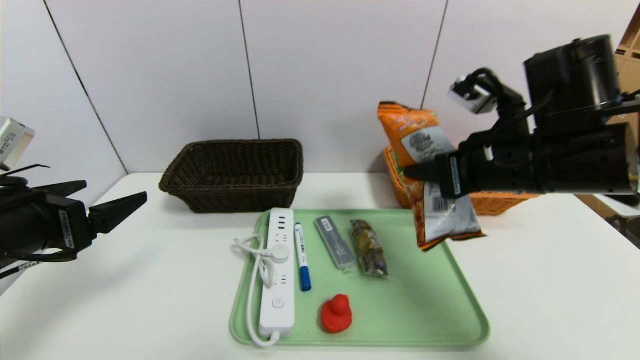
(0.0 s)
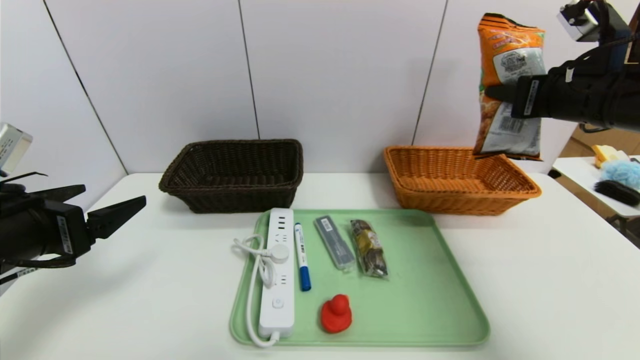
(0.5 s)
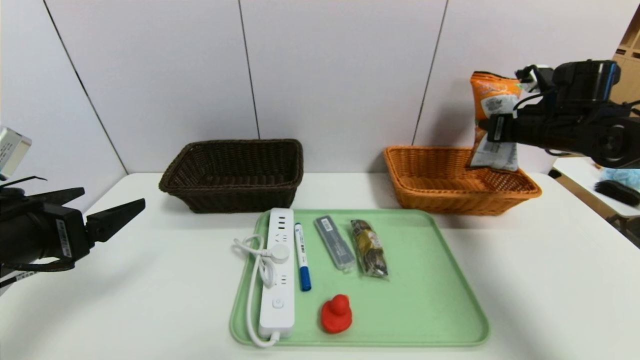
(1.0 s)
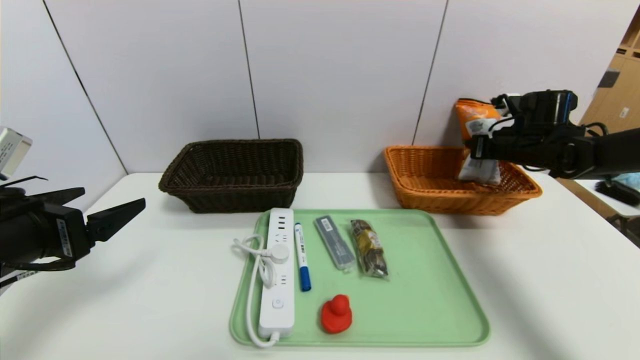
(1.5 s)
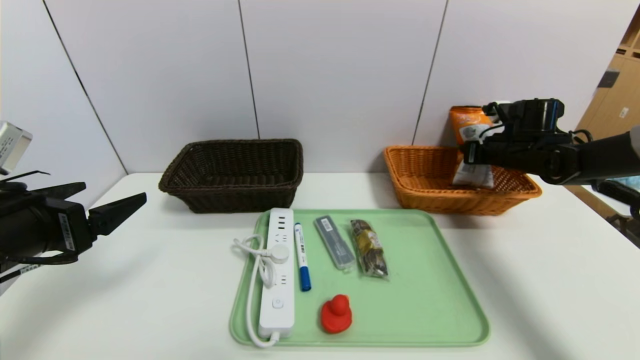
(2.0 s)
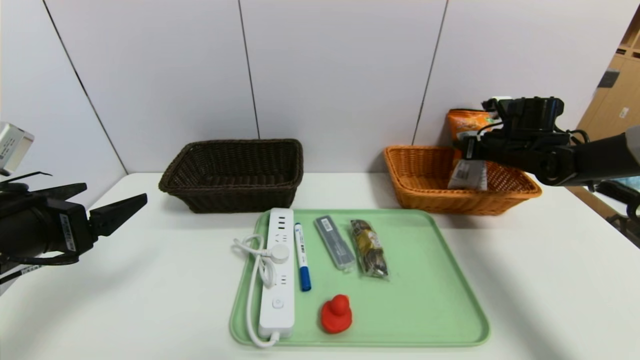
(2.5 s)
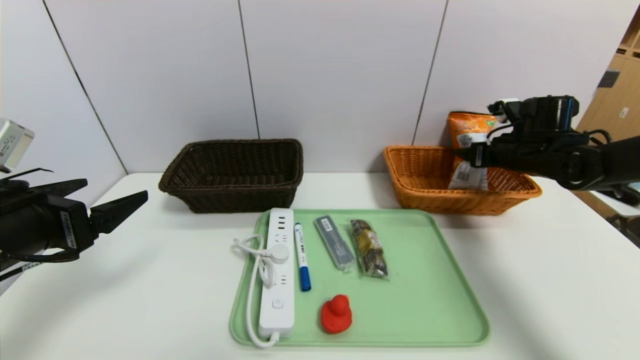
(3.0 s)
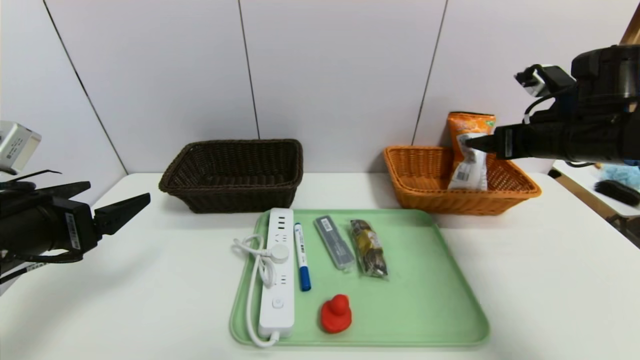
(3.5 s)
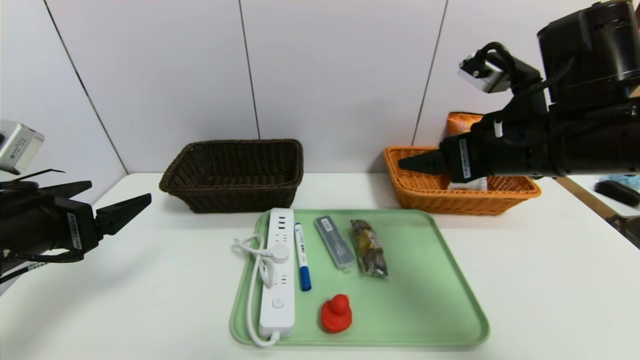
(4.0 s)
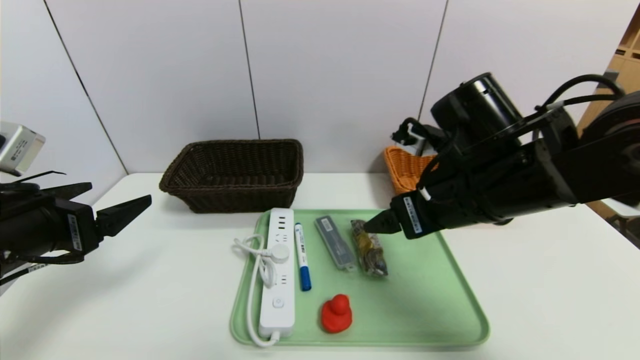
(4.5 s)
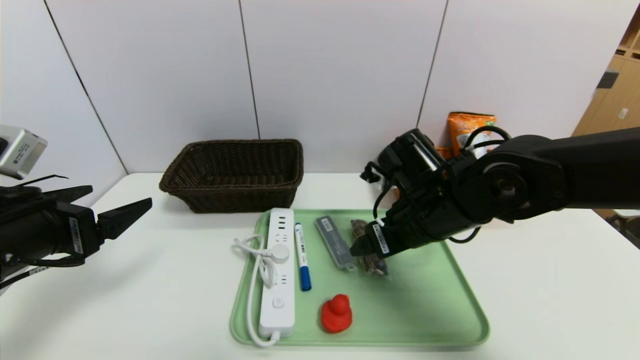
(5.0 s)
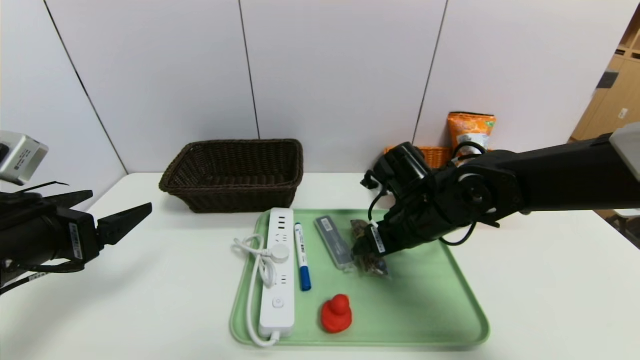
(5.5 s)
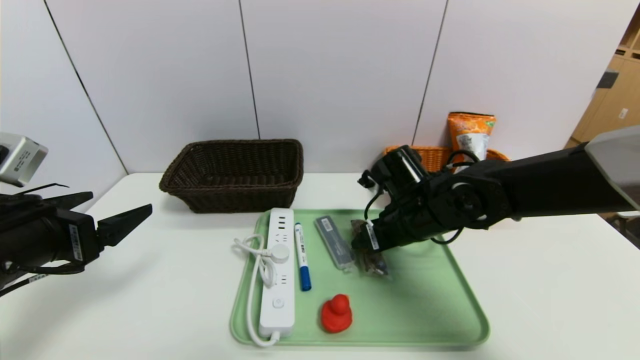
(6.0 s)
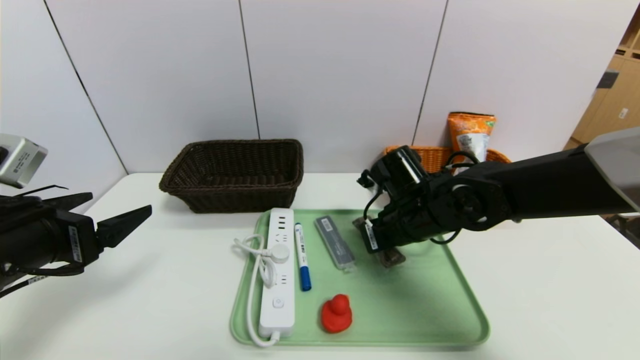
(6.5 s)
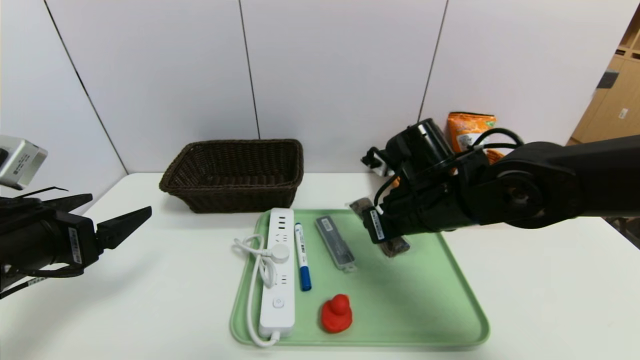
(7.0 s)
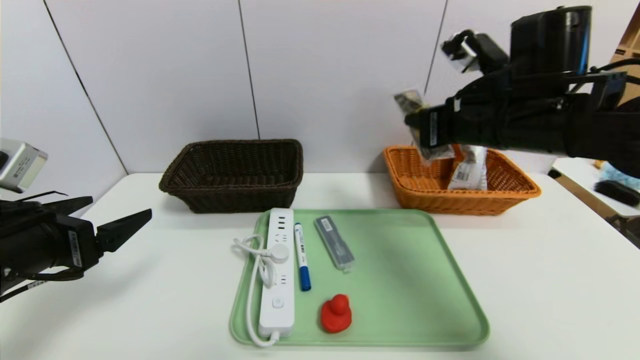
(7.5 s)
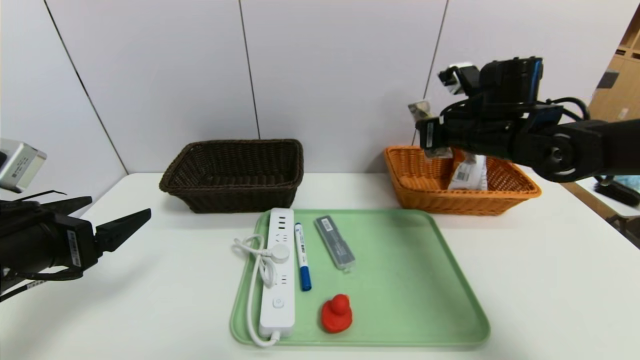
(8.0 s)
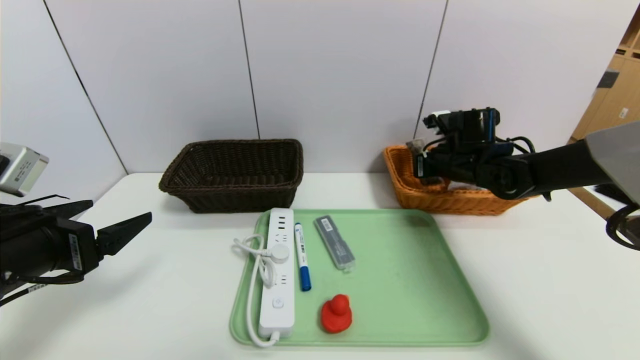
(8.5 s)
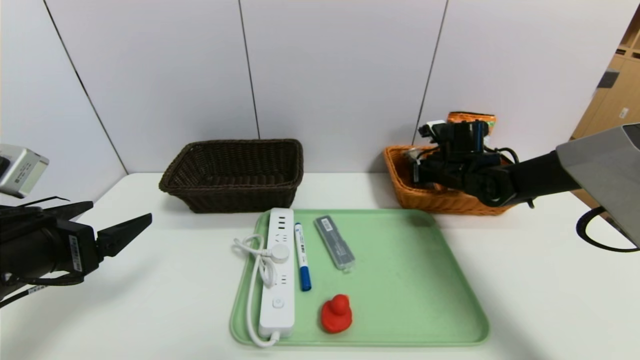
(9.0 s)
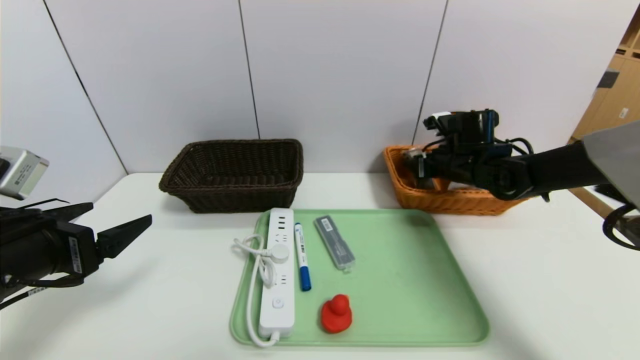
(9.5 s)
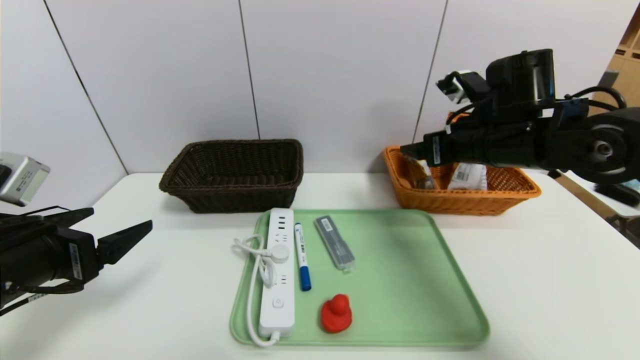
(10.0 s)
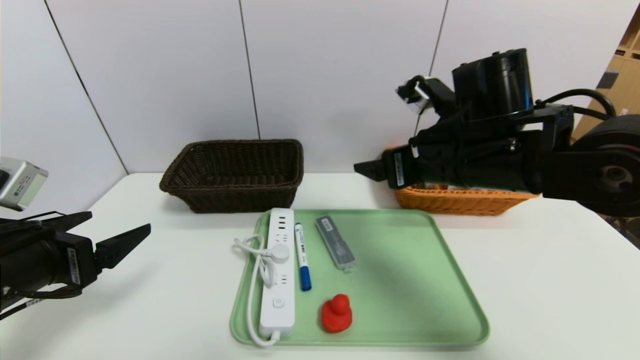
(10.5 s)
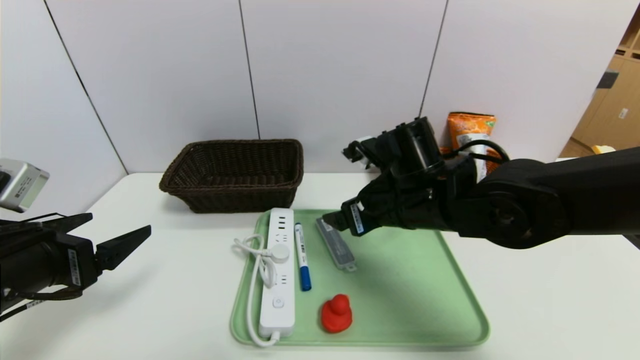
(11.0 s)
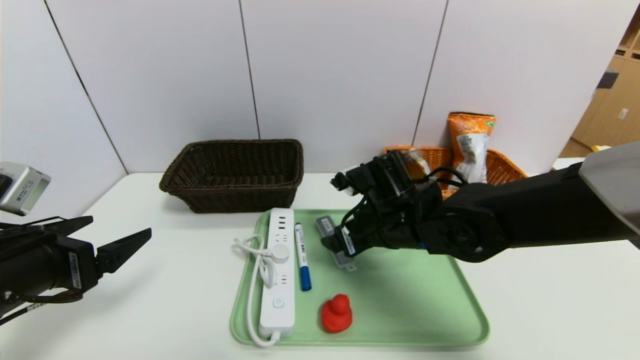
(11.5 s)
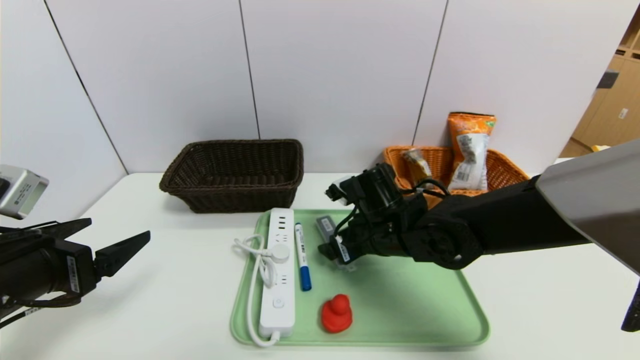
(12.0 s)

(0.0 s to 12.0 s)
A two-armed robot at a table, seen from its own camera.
Task of the whole recording: place the food in the right basket with the right gripper, and place the non food items in the left basket with the left gripper.
Step, 0.0 s - 2.5 s: Grasp the cookie and put it in the right basket.
Step, 3.0 s - 9.5 s: Grasp the chocolate and put it in the right basket.
0.0 s - 2.0 s: The right gripper moves forward, to the right and downward, approximately 25 cm.
2.0 s - 4.0 s: The right gripper travels backward, to the left and upward by roughly 30 cm, and opens up.
4.0 s - 6.0 s: The right gripper shifts some 20 cm downward, forward and to the left.
6.0 s - 8.0 s: The right gripper moves to the right, upward and forward, about 15 cm, and closes up.
8.0 s - 10.0 s: The right gripper heads backward, covering about 5 cm, and opens up.
10.0 s - 12.0 s: The right gripper heads downward and to the left, covering some 20 cm.

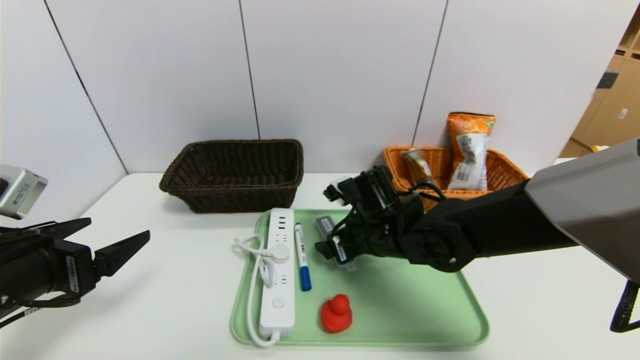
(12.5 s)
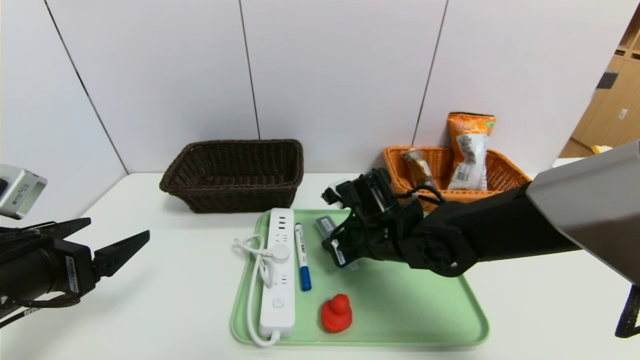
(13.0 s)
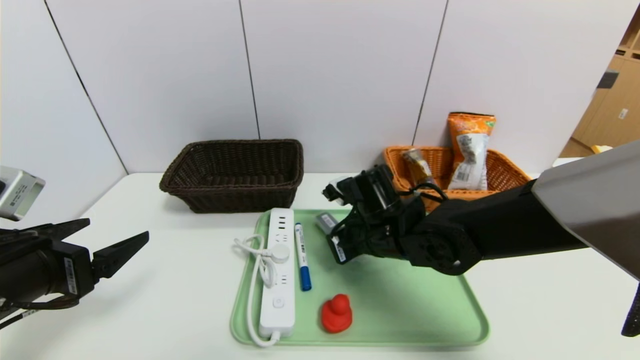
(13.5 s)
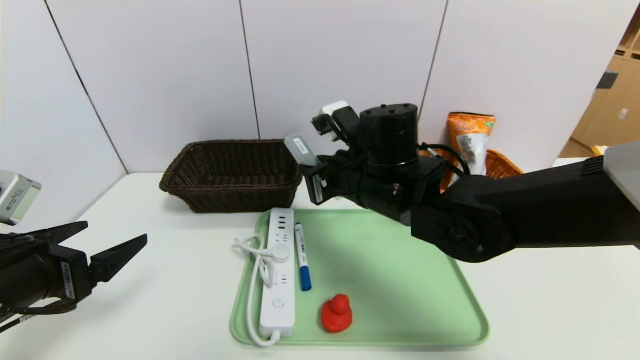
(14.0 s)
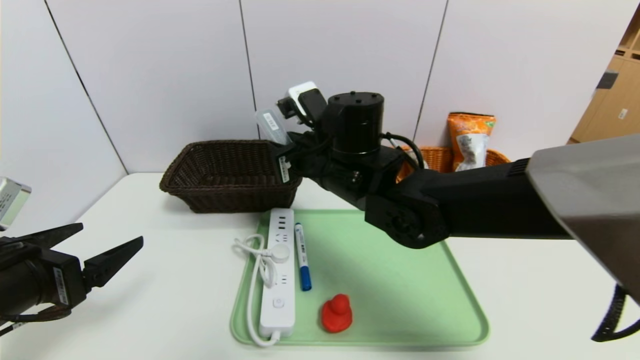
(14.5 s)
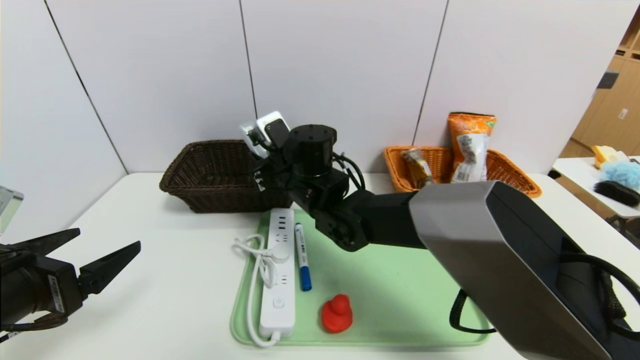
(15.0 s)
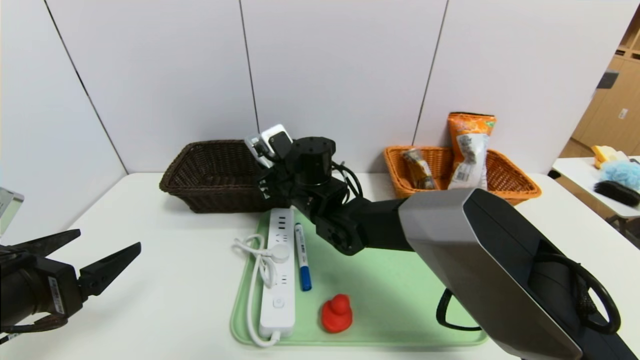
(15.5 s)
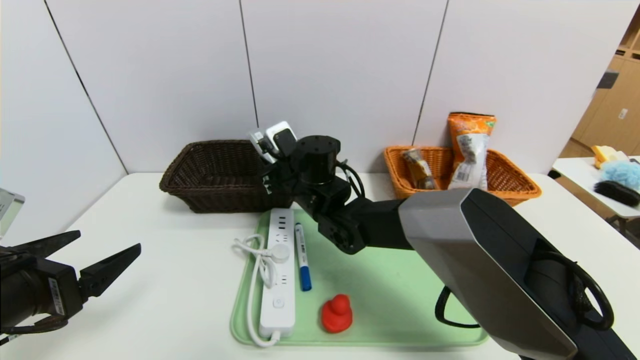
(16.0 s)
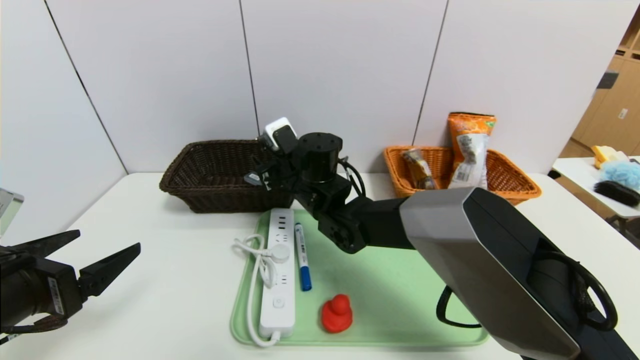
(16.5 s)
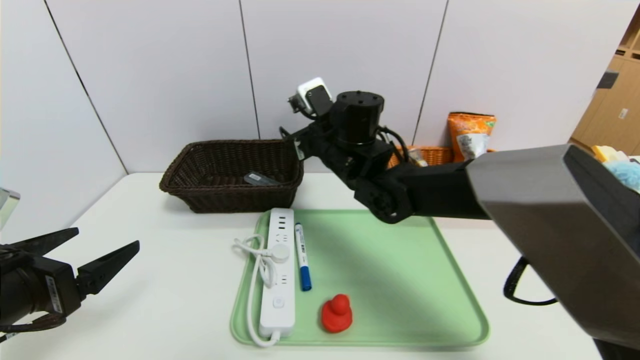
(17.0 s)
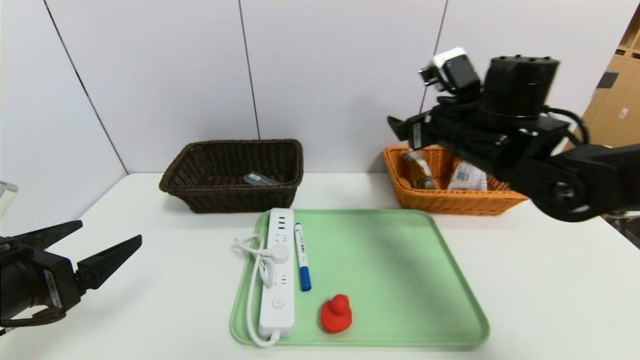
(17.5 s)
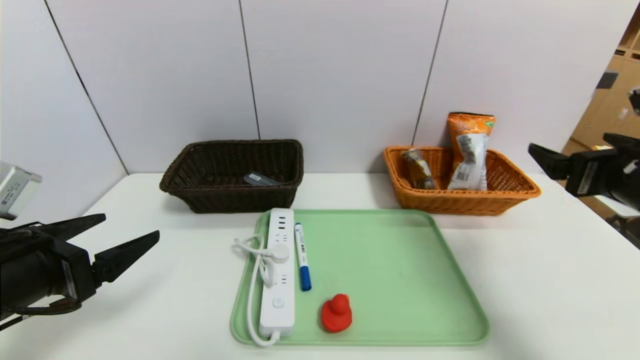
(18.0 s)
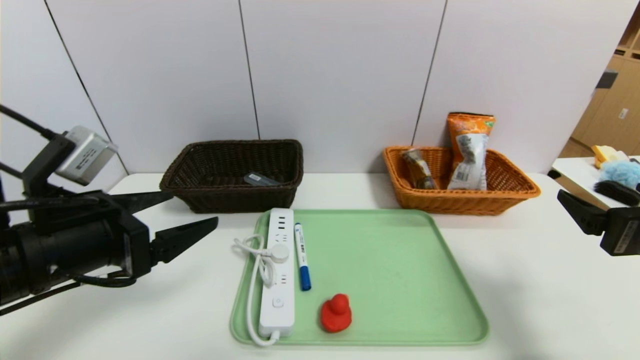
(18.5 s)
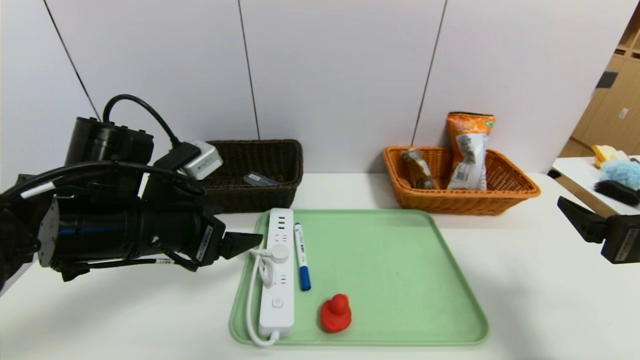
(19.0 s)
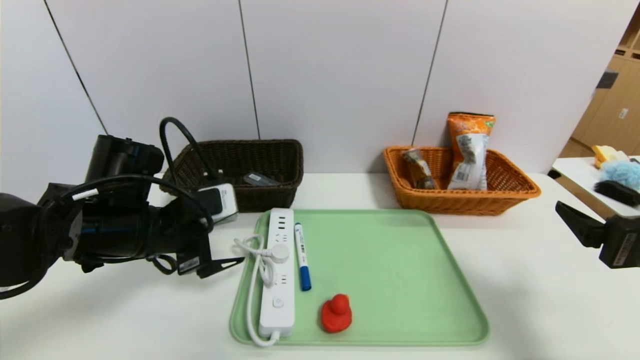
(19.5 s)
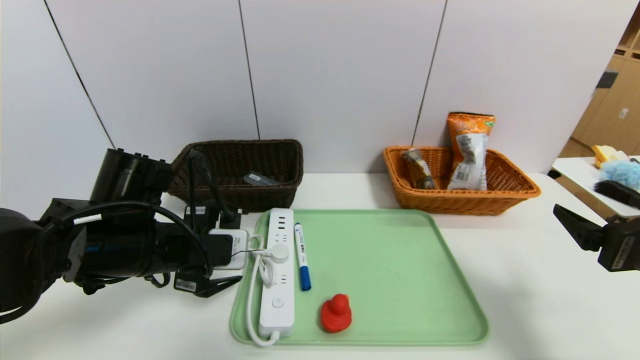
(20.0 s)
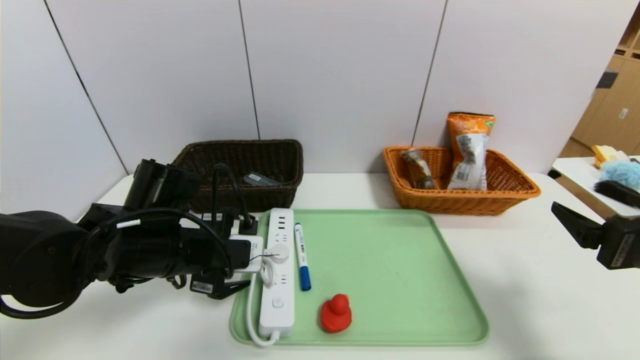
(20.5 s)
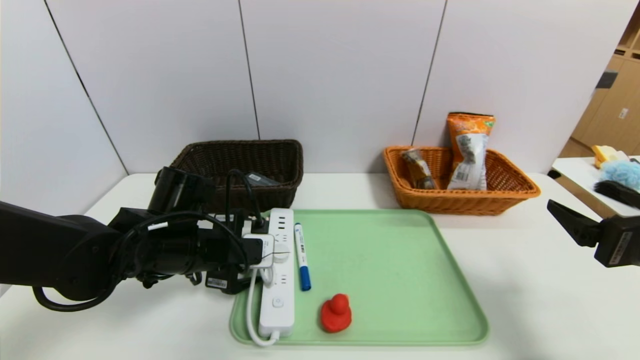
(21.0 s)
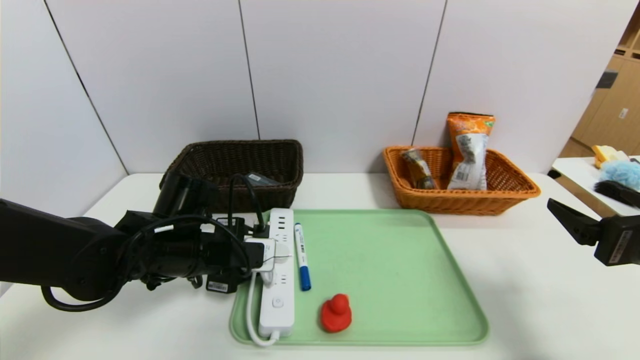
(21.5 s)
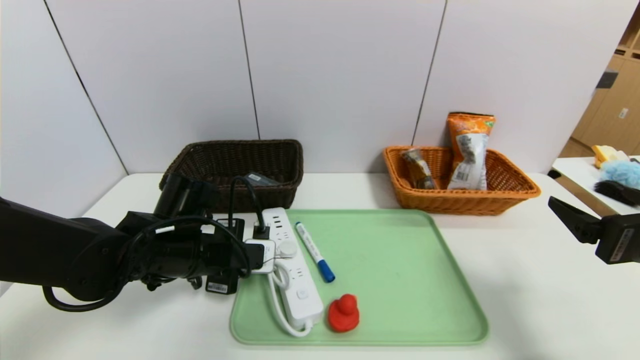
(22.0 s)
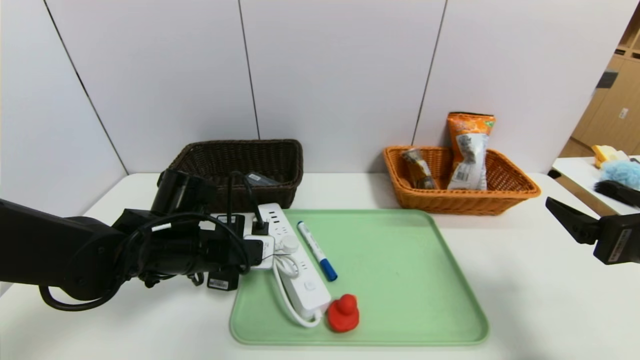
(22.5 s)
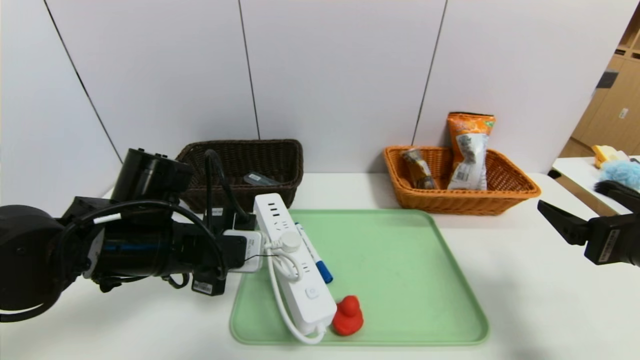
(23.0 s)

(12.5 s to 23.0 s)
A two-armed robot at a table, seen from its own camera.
Task of the whole recording: place the food in the right basket with the right gripper, and place the non food items in the left basket with the left gripper.
12.5 s - 14.5 s: The right gripper travels upward and to the left by about 15 cm, and closes its fingers.
14.5 s - 16.5 s: The right gripper shifts about 10 cm downward and forward, and opens its fingers.
16.5 s - 19.0 s: The left gripper travels forward and to the right by some 15 cm, while the right gripper heads to the right and backward, covering some 40 cm.
19.0 s - 21.0 s: The left gripper moves downward, some 10 cm.
21.0 s - 23.0 s: The left gripper ends up roughly 5 cm from where it was, and closes up.
